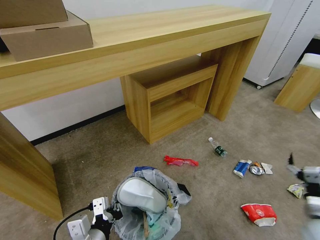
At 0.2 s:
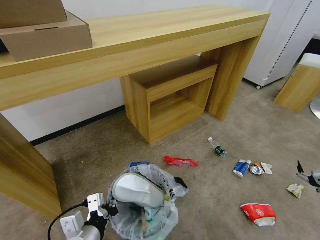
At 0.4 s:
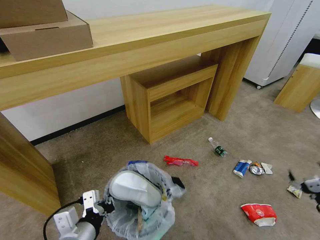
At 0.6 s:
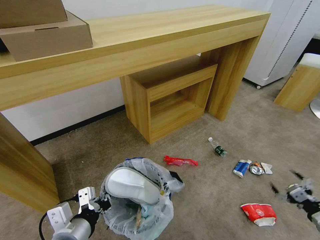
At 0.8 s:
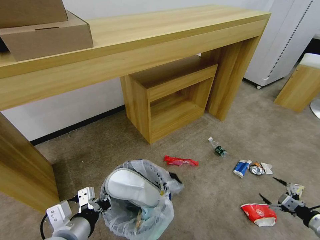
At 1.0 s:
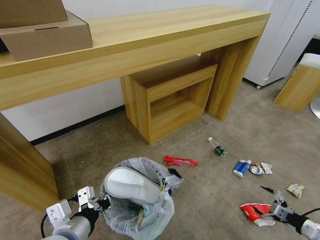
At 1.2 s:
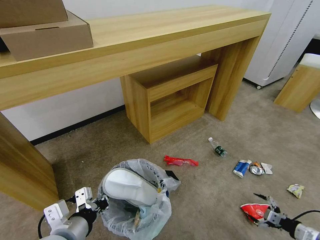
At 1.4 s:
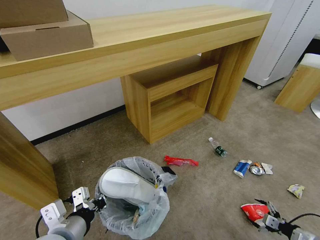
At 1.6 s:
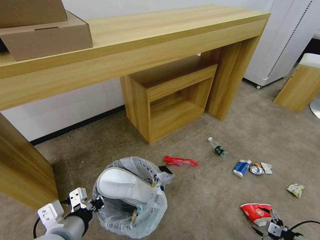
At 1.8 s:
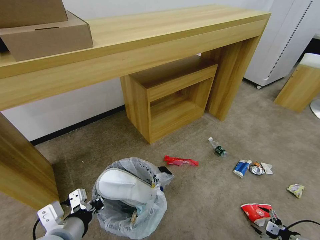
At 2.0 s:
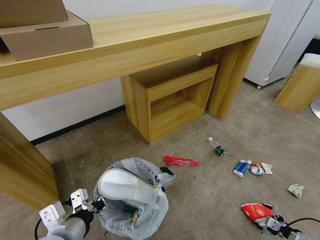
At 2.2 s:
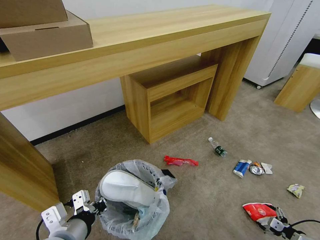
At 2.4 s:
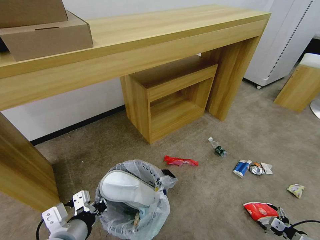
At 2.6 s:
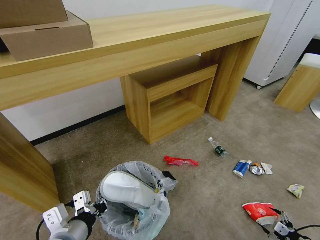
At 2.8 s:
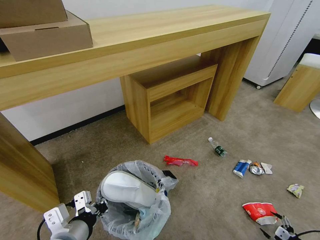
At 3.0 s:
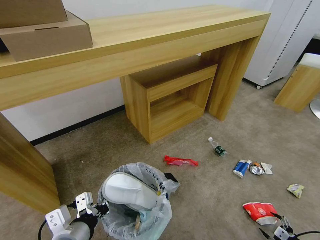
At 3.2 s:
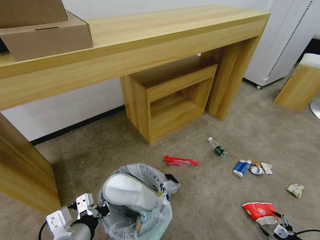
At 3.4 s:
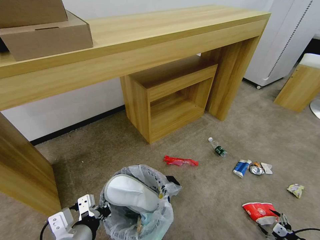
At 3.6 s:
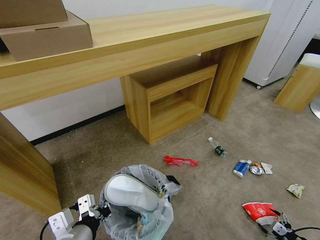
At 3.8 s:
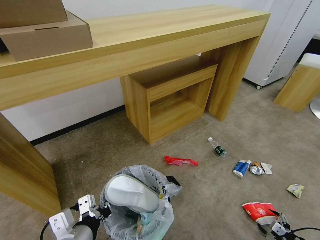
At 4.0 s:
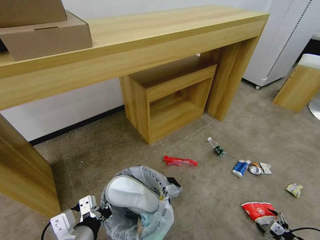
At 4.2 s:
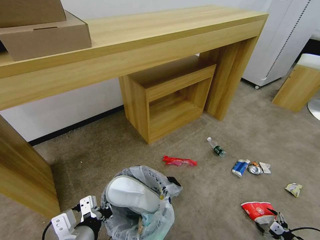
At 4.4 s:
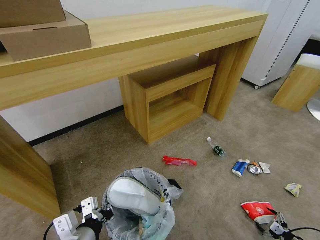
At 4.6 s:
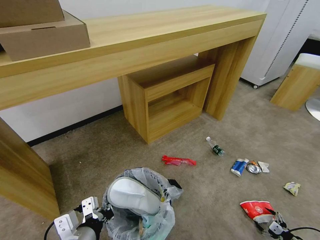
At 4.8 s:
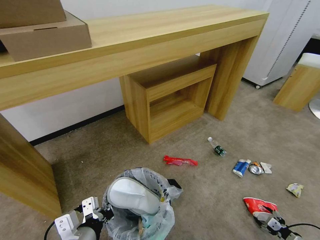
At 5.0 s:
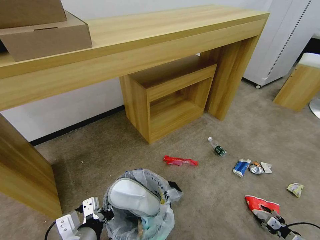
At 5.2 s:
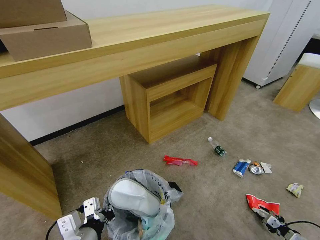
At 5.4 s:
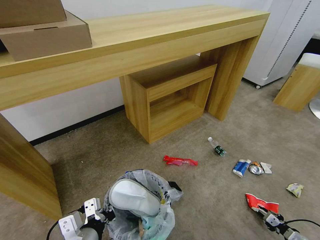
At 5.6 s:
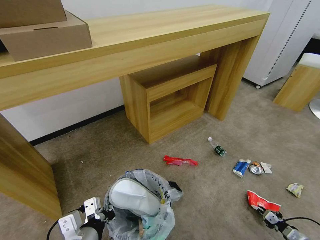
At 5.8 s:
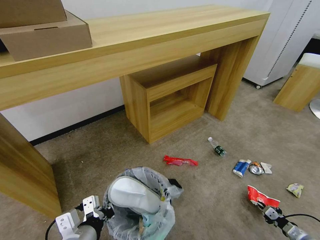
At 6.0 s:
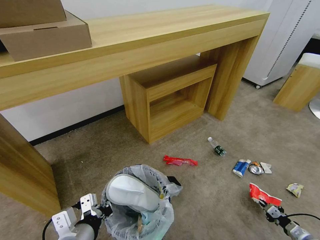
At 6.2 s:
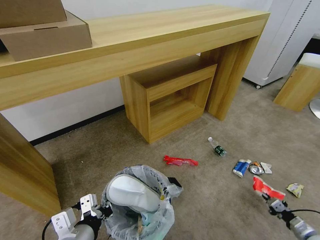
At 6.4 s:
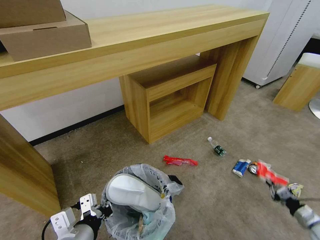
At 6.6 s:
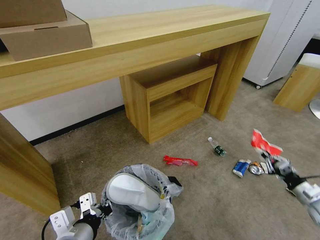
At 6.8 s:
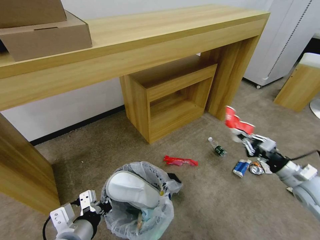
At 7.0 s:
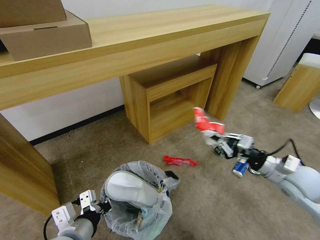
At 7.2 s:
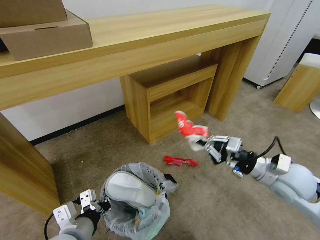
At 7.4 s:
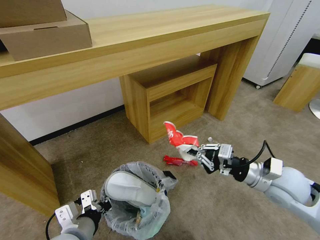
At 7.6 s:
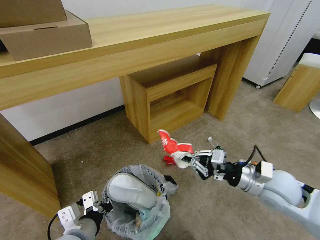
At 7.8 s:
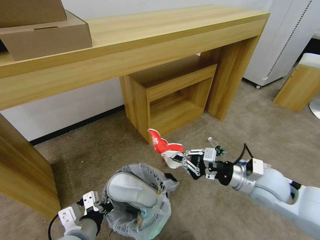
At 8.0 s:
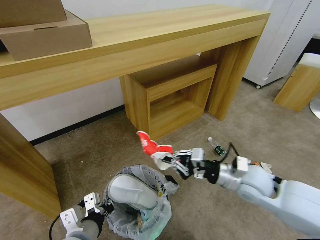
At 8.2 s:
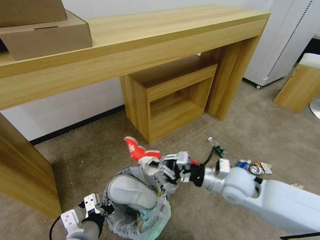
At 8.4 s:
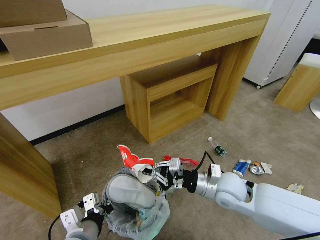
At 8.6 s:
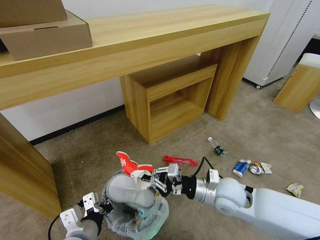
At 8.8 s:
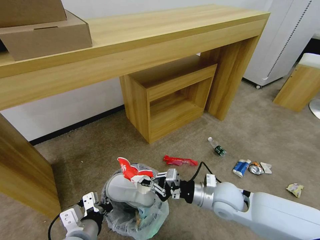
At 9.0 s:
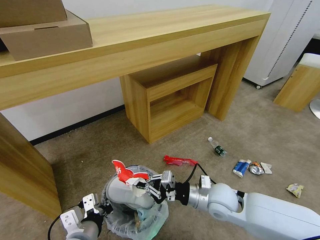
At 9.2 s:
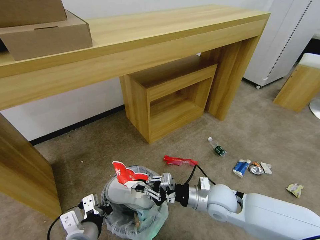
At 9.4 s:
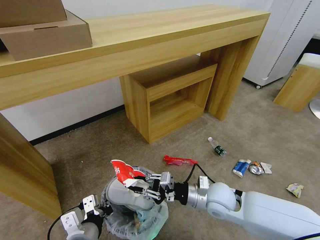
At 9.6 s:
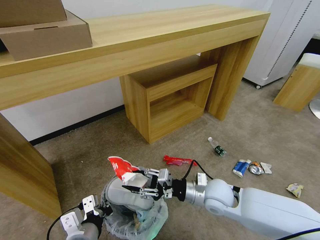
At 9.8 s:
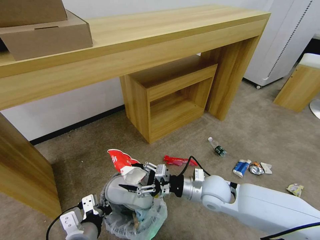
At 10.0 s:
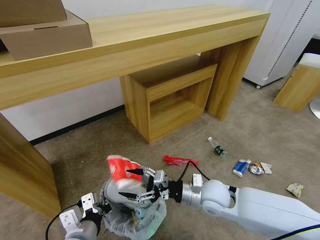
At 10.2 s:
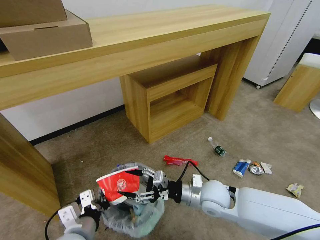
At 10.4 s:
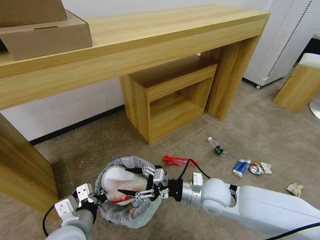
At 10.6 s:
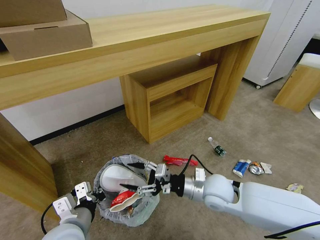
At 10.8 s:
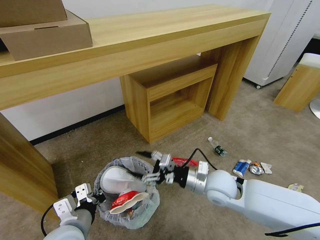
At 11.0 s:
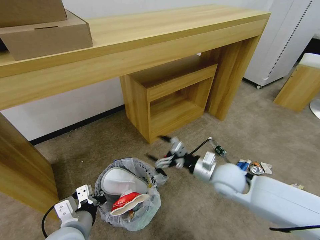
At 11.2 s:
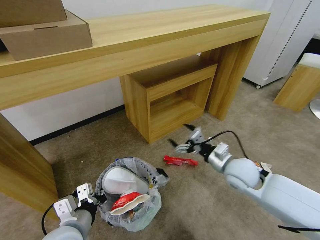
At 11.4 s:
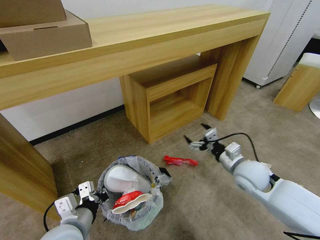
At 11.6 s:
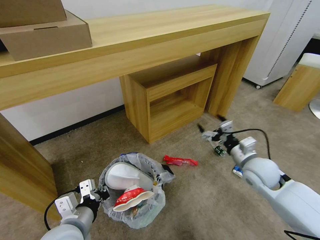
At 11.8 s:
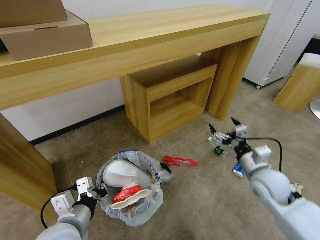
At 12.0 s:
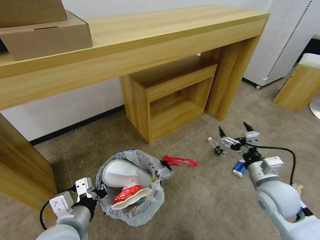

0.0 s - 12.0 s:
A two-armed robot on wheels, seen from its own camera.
Task of the whole recording: Pick up the trash bin and place the garbage on the floor into it.
0.0 s - 1.6 s: The right gripper heads downward, to the right and backward, covering roughly 20 cm, while the left gripper heads upward, covering about 5 cm.
1.6 s - 3.0 s: The grippers move only a little.
3.0 s - 4.4 s: The grippers move only a little.
4.4 s - 6.0 s: The right gripper closes its fingers.
6.0 s - 7.6 s: The right gripper travels upward and to the left by about 40 cm.
7.6 s - 9.0 s: The right gripper shifts some 15 cm to the left and downward.
9.0 s - 10.4 s: The right gripper opens its fingers.
10.4 s - 12.0 s: The right gripper goes some 15 cm to the right.

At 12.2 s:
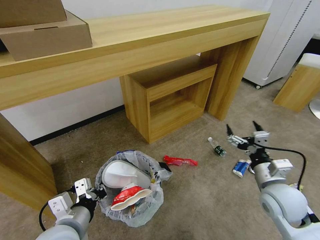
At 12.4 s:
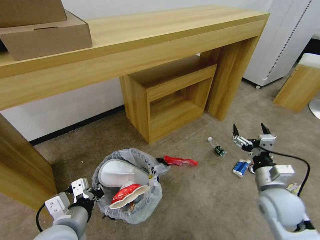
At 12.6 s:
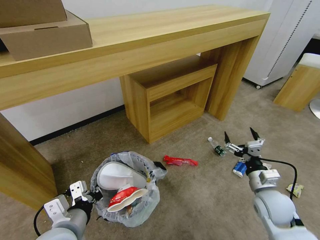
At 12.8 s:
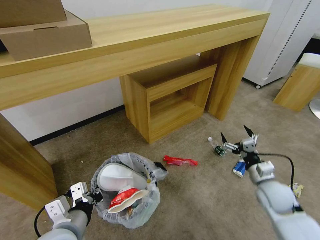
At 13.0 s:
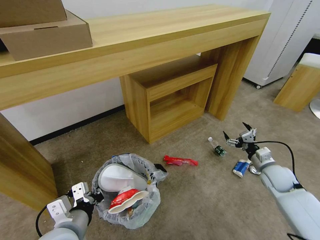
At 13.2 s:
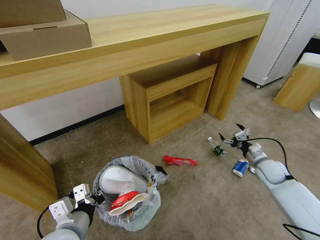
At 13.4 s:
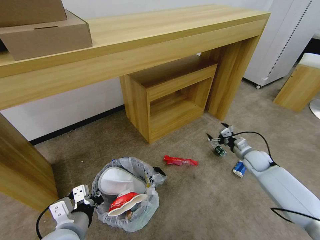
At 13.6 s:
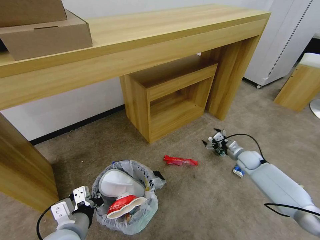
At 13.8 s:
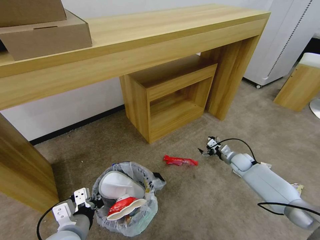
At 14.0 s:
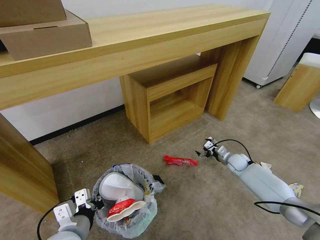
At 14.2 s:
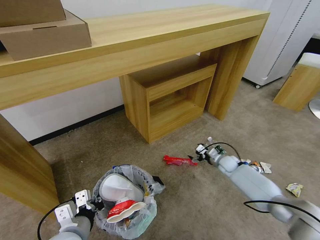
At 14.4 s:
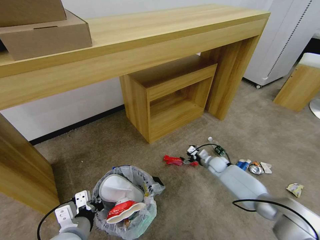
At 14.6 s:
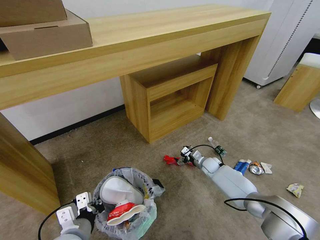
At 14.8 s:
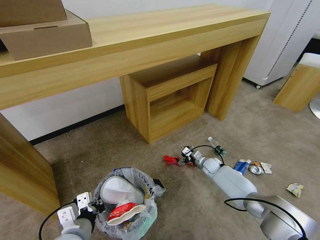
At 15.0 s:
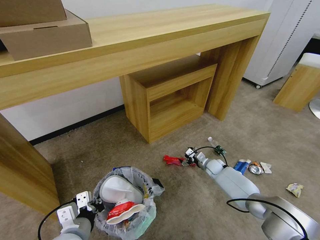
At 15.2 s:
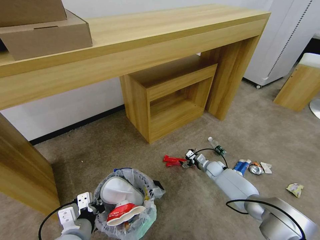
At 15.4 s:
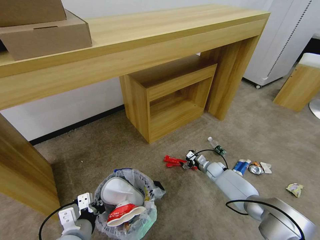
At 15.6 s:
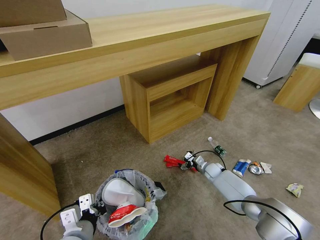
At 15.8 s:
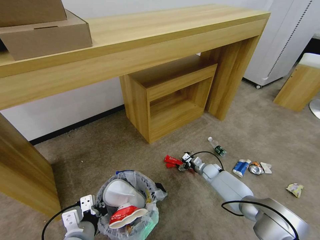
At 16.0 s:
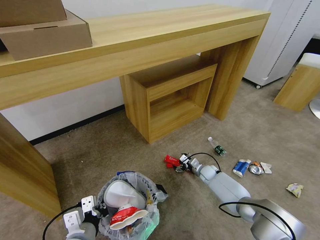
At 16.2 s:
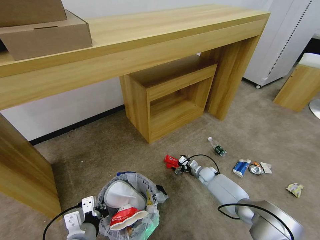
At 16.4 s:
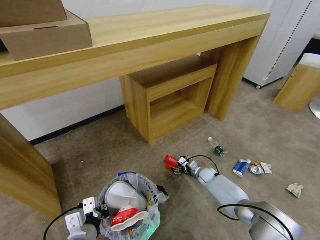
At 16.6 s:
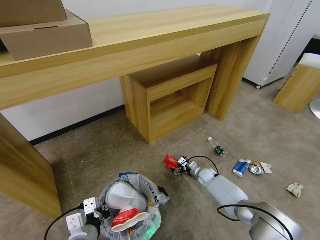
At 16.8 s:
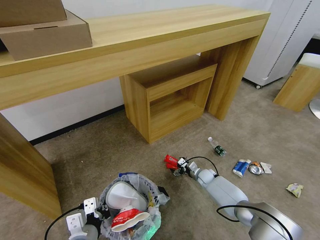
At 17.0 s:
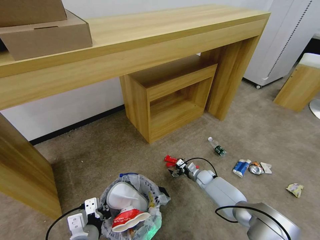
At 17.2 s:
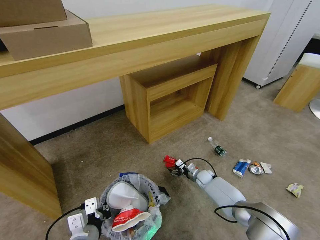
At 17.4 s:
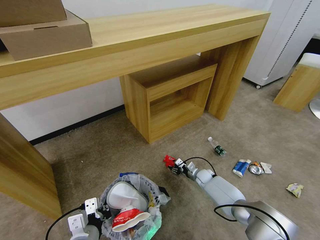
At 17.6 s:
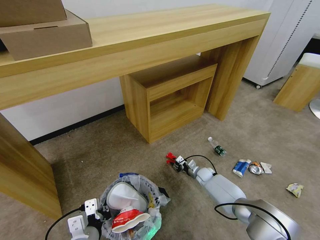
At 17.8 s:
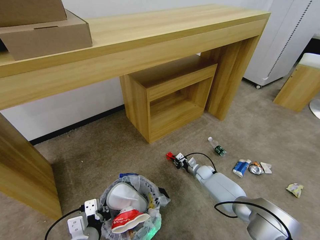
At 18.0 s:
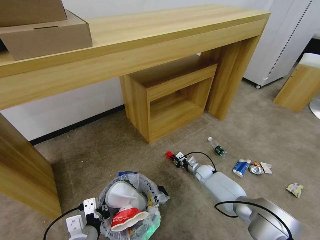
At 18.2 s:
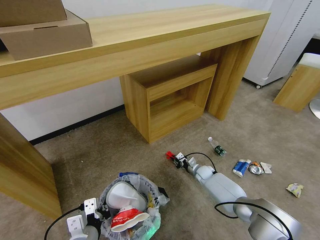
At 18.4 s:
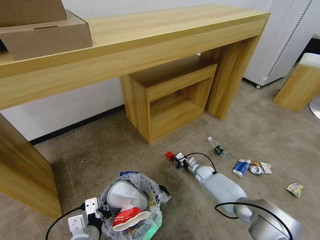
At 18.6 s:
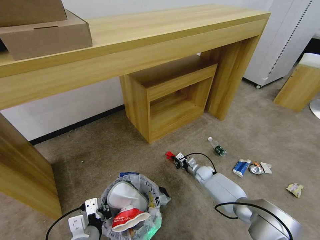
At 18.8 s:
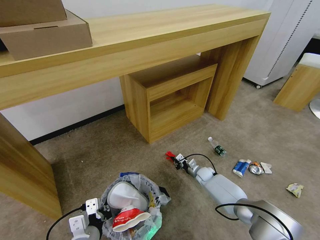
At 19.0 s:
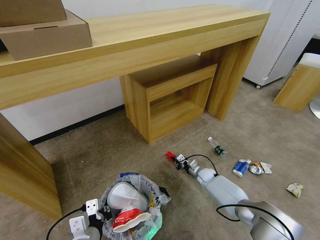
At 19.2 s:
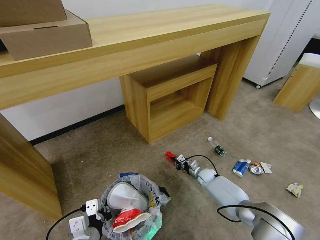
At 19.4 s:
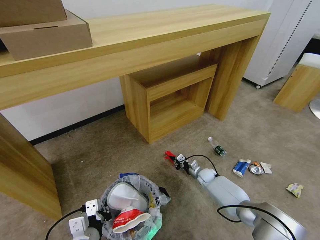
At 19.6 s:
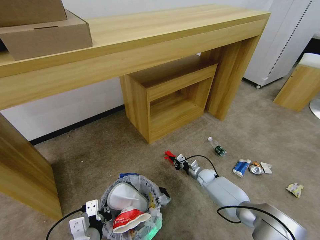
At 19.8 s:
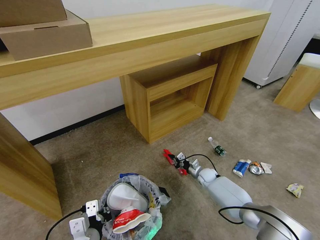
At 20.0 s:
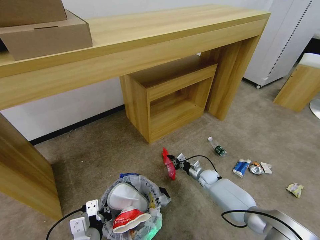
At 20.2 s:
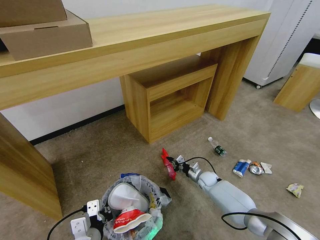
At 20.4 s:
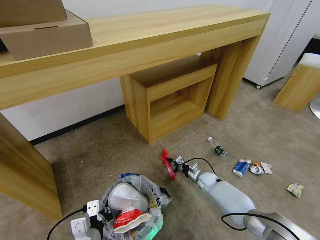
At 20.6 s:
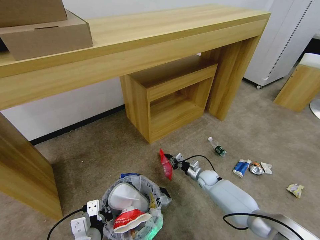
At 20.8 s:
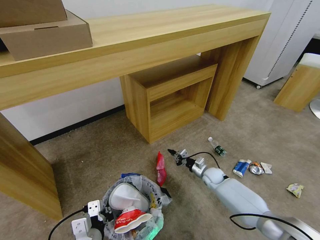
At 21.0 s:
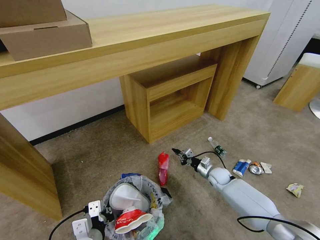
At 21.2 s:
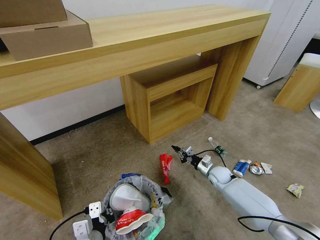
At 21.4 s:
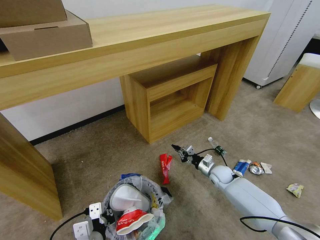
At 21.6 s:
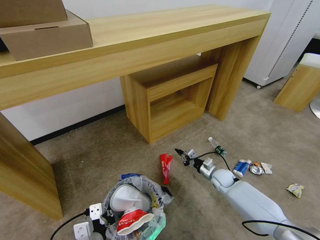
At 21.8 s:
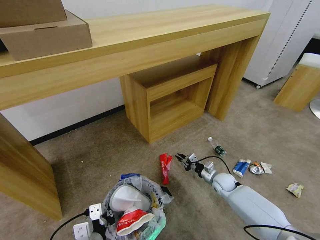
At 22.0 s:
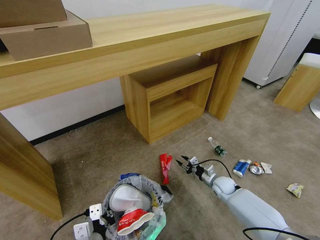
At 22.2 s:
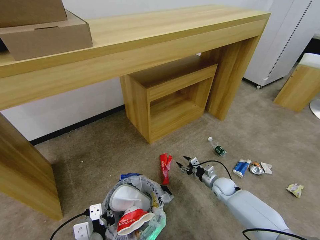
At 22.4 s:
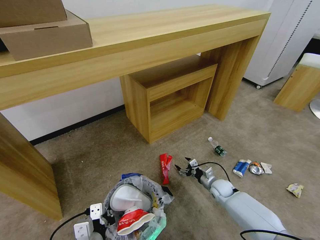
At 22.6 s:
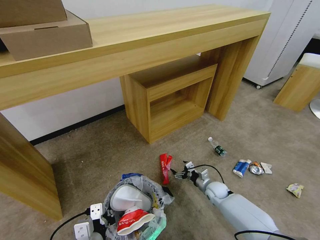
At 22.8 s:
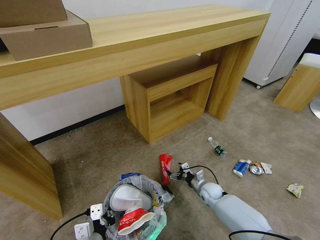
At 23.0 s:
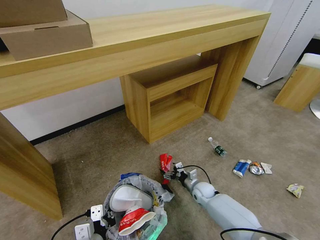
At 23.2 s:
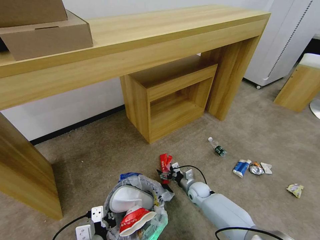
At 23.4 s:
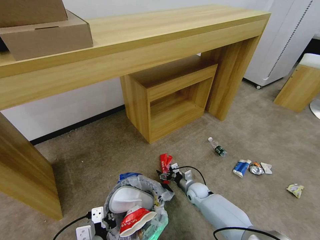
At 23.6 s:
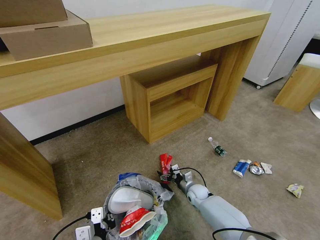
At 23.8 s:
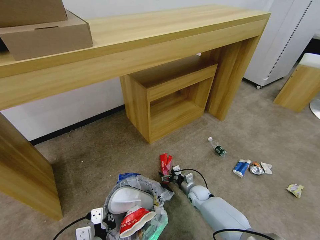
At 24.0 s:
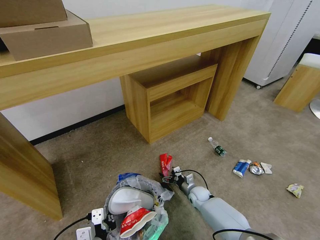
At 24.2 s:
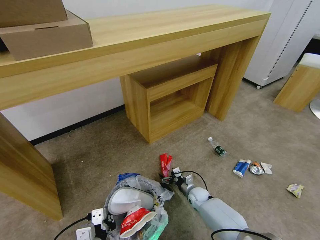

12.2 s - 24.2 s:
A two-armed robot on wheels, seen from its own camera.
Task of the whole recording: Pick up the trash bin and place the garbage on the floor into it.
12.2 s - 13.8 s: The right gripper moves forward and downward, approximately 30 cm.
13.8 s - 15.2 s: The right gripper is displaced to the left and downward by some 15 cm.
15.2 s - 16.6 s: The right gripper moves about 5 cm.
16.6 s - 18.2 s: The right gripper closes.
18.2 s - 19.8 s: The grippers stay close to where they were, moving slightly.
19.8 s - 21.2 s: The right gripper goes about 5 cm upward.
21.2 s - 22.6 s: The right gripper moves roughly 5 cm, and opens.
22.6 s - 24.2 s: The right gripper moves to the left, roughly 10 cm.
